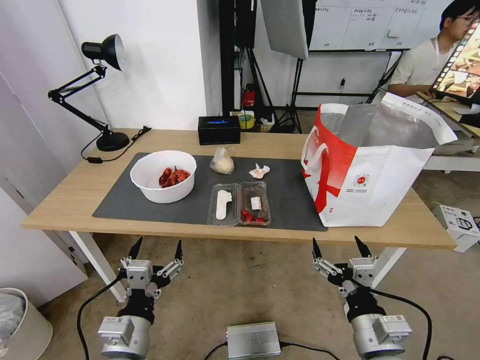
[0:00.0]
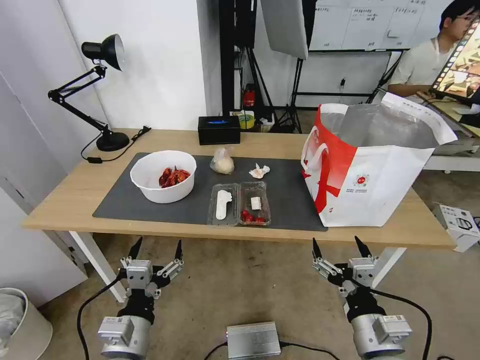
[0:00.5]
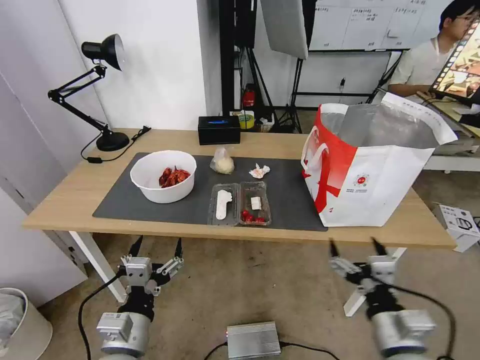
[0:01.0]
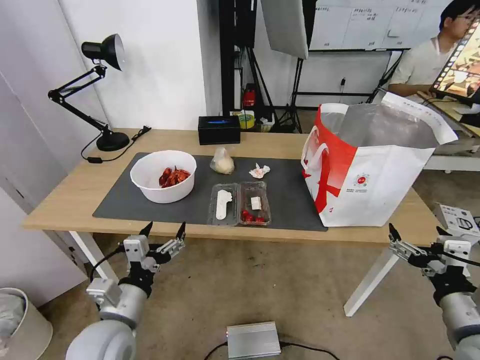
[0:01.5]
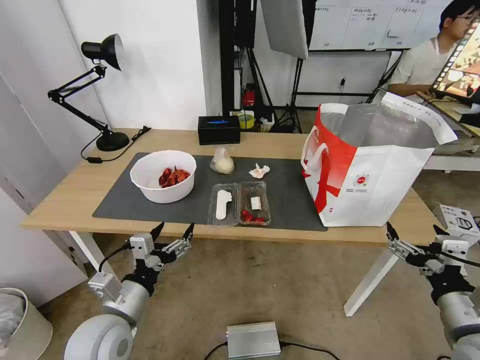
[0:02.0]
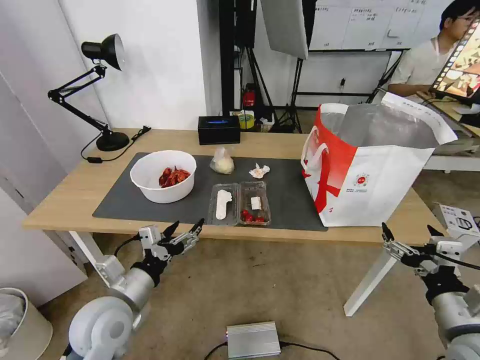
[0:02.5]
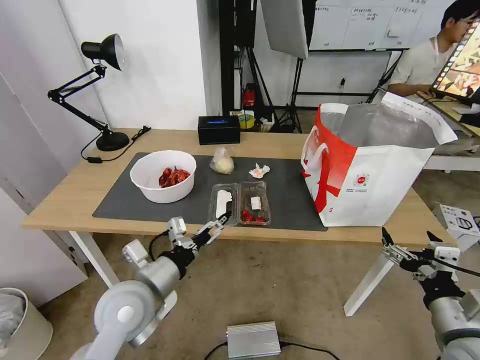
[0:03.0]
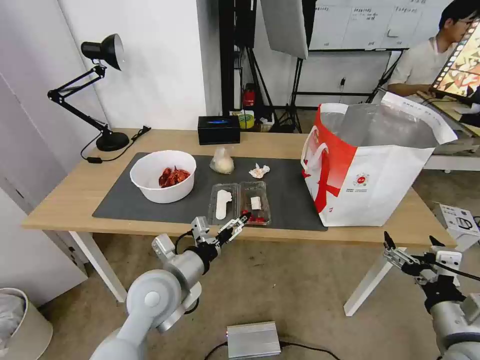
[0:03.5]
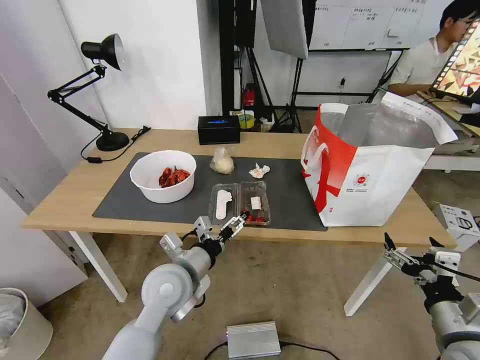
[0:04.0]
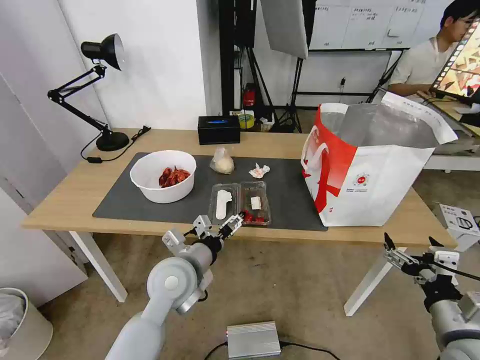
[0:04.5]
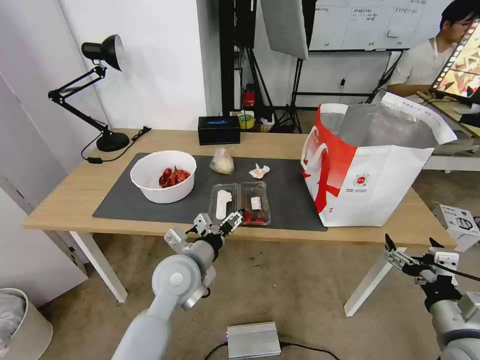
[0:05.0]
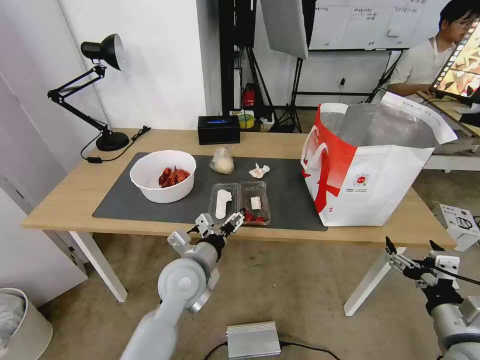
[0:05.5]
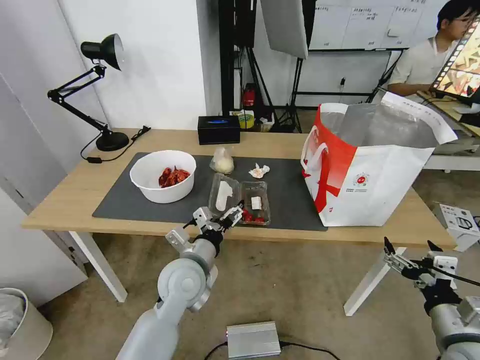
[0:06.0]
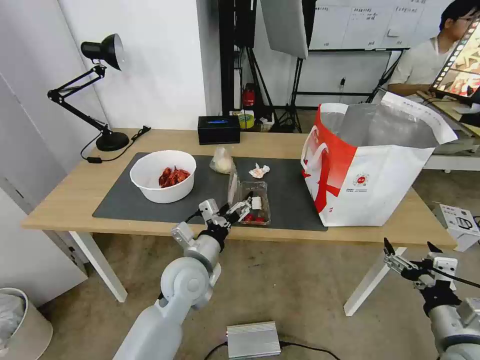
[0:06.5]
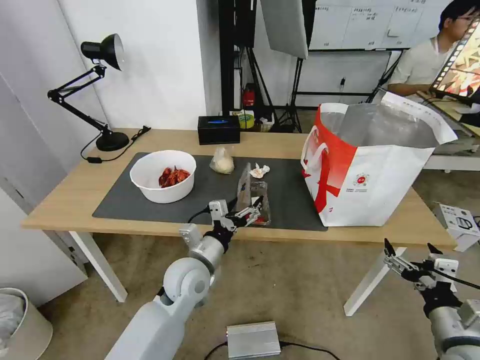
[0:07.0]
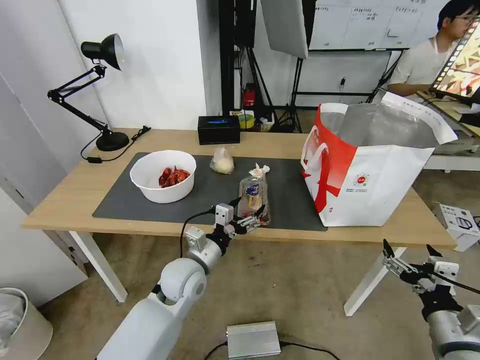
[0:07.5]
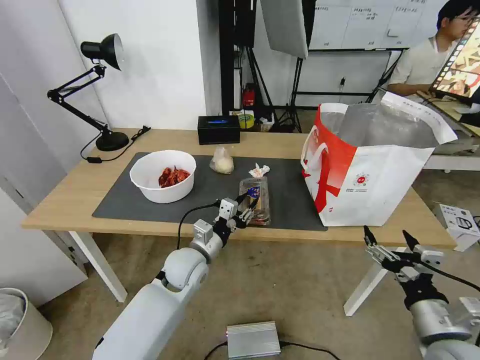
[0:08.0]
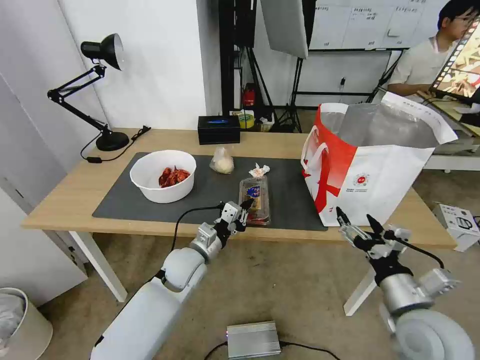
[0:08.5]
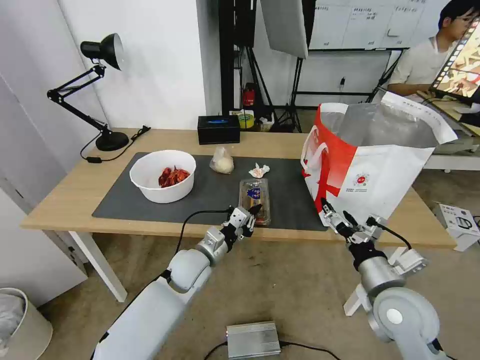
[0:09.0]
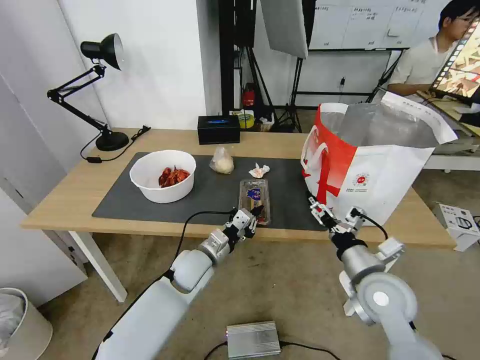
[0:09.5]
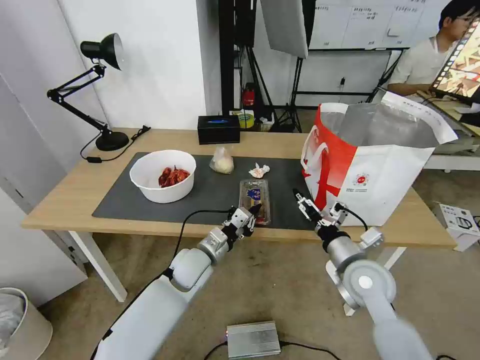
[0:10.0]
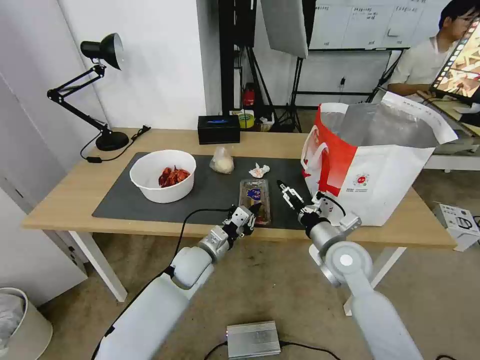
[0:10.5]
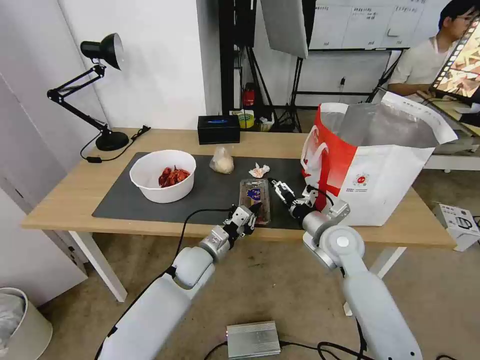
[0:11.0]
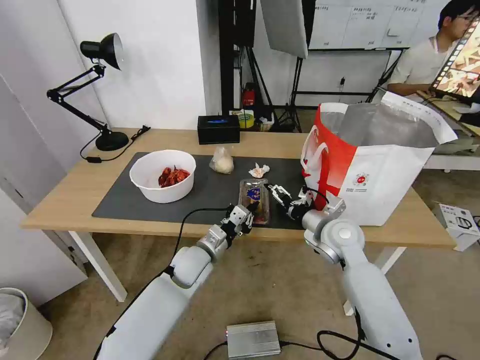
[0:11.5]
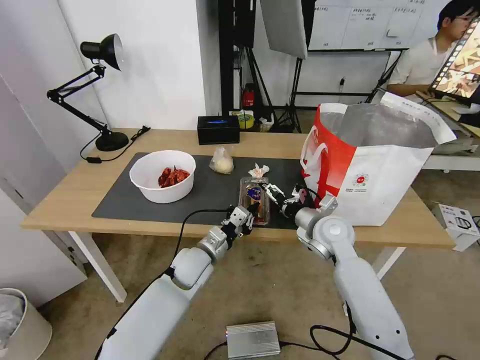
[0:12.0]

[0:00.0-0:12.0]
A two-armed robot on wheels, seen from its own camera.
Task of the whole recording: Pick up the trash from the table and place it into the takeout bag.
0:02.0 to 0:04.0: The left gripper moves to the right and forward, roughly 10 cm.
0:04.0 to 0:06.0: The grippers stay close to where they were, moving slightly.
0:06.0 to 0:08.0: The left gripper moves forward, approximately 5 cm, and closes its fingers.
0:08.0 to 0:10.0: The right gripper shifts about 20 cm forward and to the left.
0:10.0 to 0:12.0: The right gripper heads forward, covering roughly 10 cm.

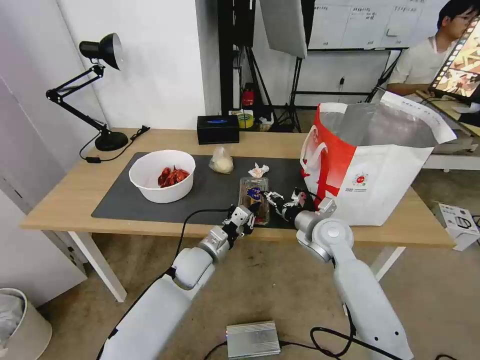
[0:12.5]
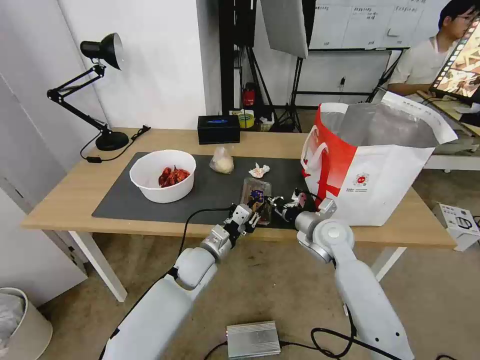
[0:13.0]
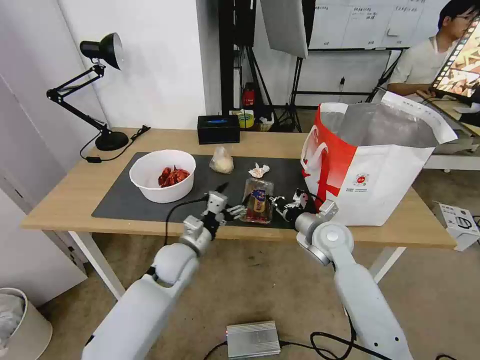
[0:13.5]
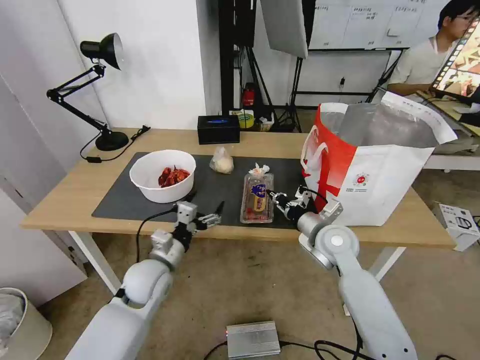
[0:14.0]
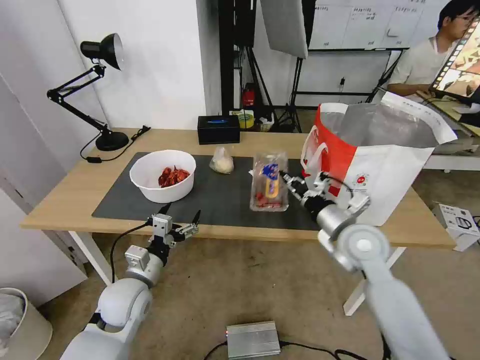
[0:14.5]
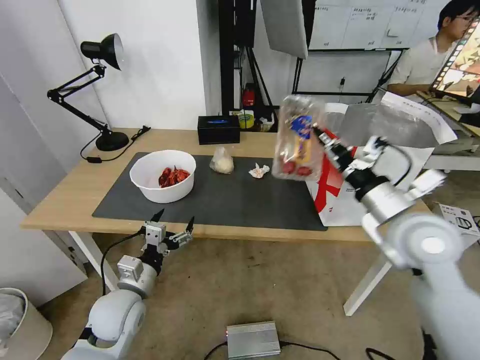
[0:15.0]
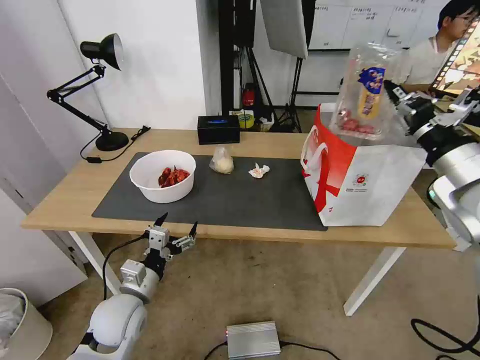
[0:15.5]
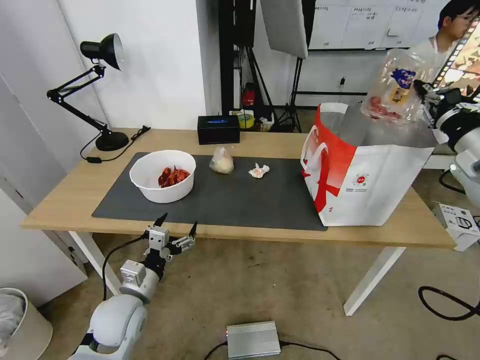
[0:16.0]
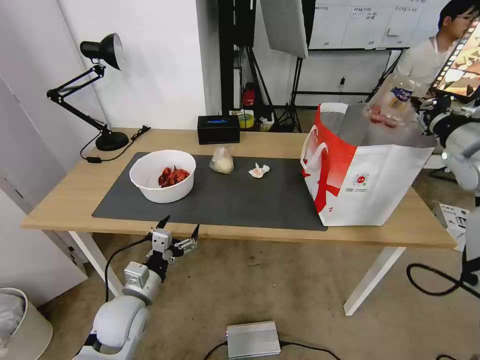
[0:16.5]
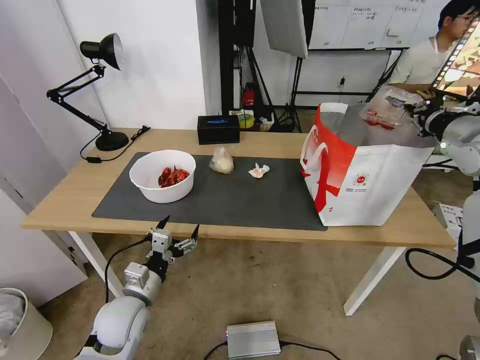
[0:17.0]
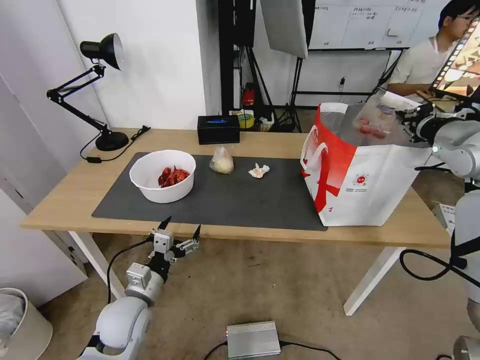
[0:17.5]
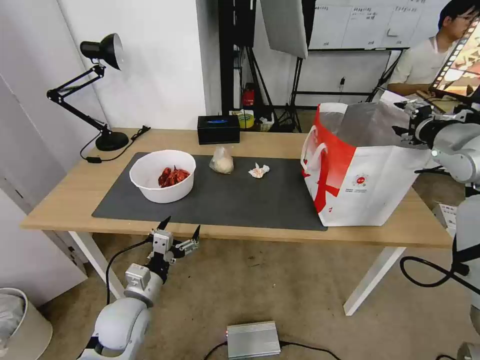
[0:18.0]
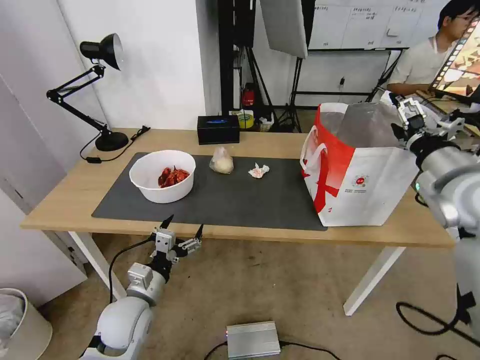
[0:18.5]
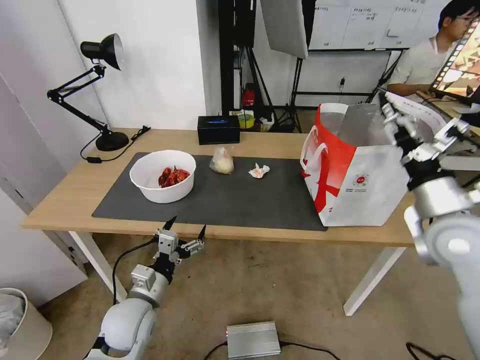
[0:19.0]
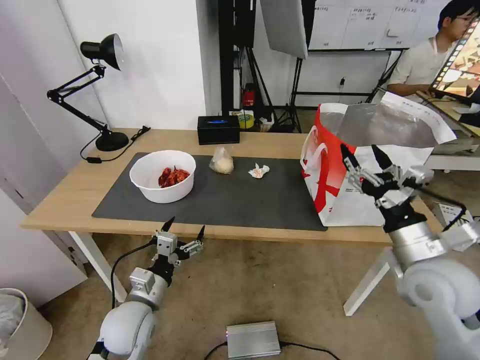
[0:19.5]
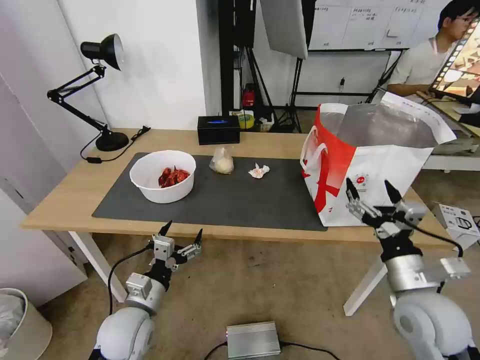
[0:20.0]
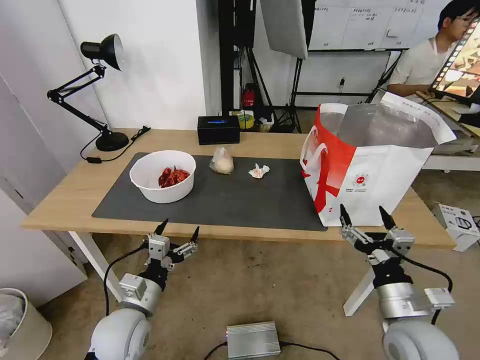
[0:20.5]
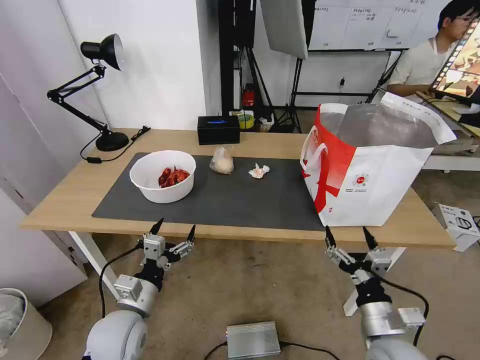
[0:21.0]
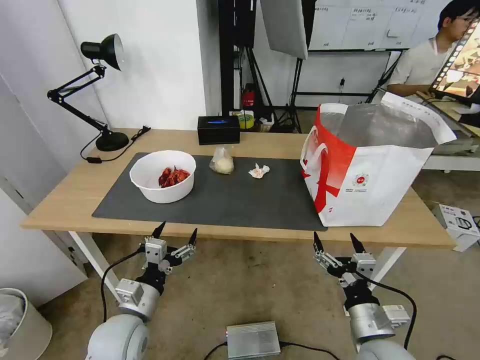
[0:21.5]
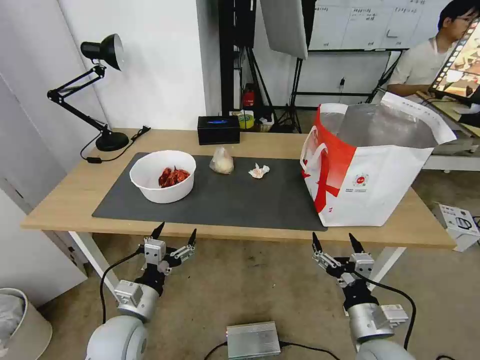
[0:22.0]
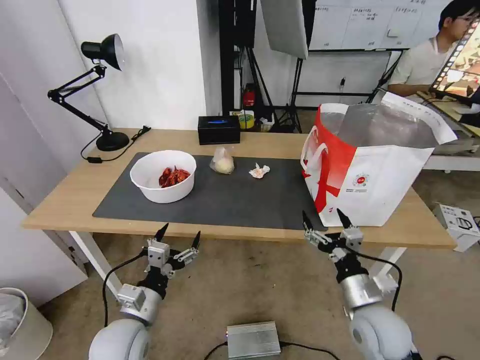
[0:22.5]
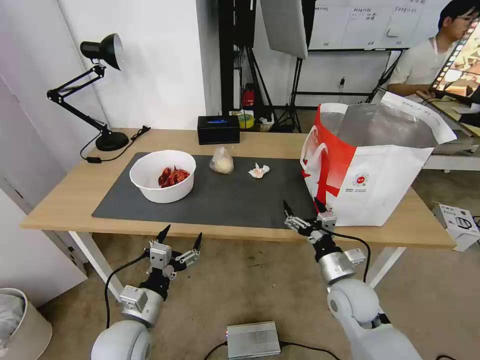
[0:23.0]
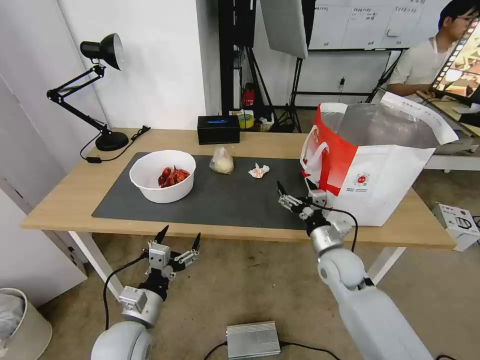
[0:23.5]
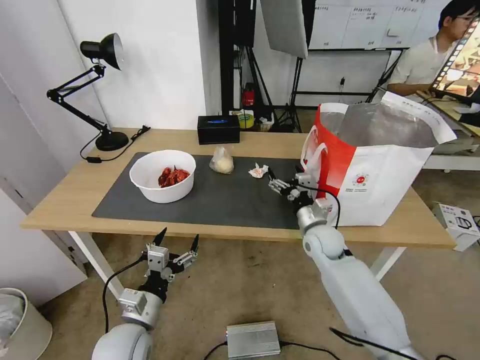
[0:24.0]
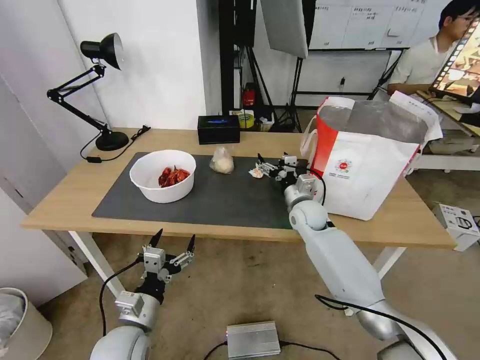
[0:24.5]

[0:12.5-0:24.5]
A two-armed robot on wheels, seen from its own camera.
Task of the whole recording: Pick up the trash from the table and place it into the takeout bag.
0:12.5 to 0:14.5: The right gripper heads backward and upward, covering some 10 cm, and closes. Meanwhile the left gripper goes approximately 15 cm to the left and backward, and opens up.
0:14.5 to 0:16.5: The right gripper travels upward and to the right by about 25 cm.
0:16.5 to 0:18.5: The right gripper is displaced to the left by about 5 cm, and opens.
0:18.5 to 0:20.5: The right gripper shifts some 25 cm downward and backward.
0:20.5 to 0:22.5: The right gripper changes place by approximately 5 cm.
0:22.5 to 0:24.5: The right gripper shifts roughly 30 cm forward.

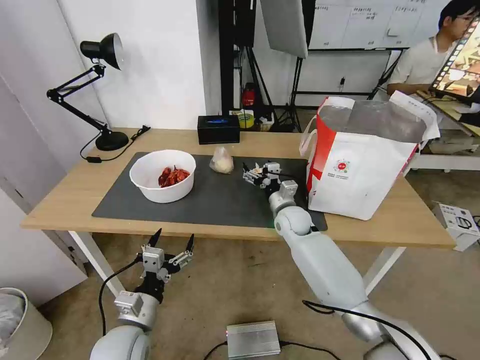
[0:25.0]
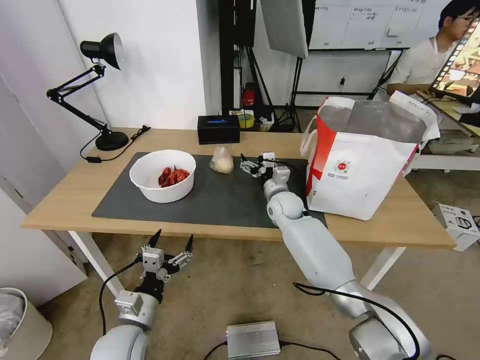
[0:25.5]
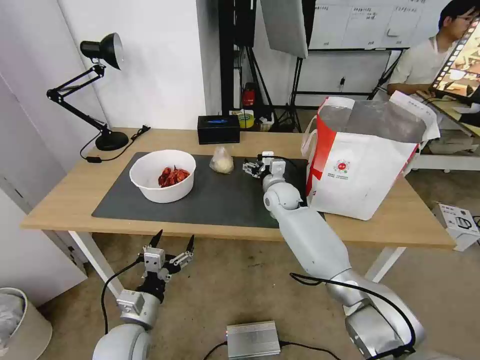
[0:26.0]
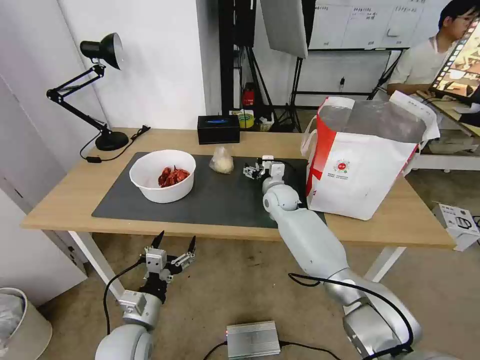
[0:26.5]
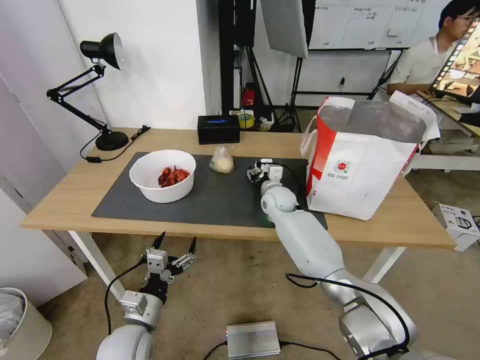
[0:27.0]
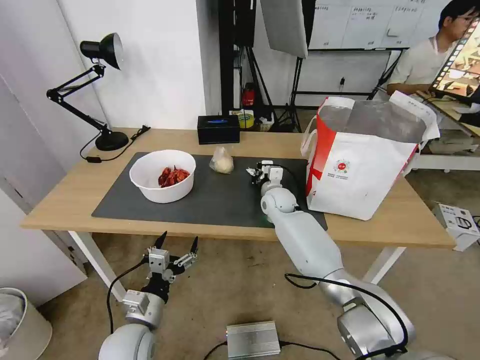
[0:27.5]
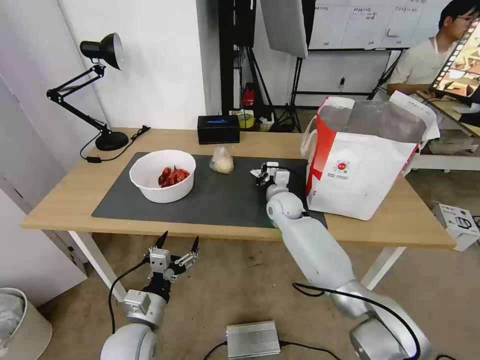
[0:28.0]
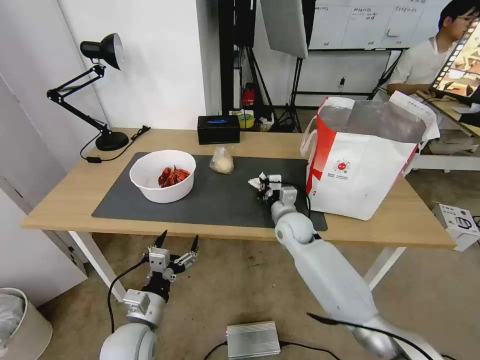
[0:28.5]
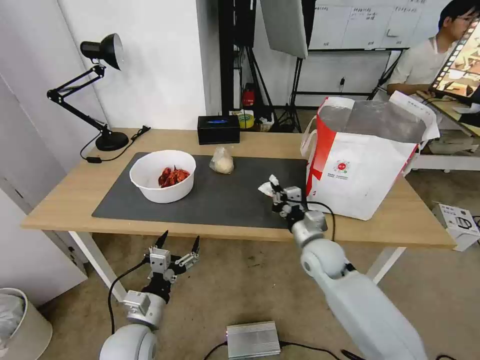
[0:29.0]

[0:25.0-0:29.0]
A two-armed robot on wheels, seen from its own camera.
Task of the whole recording: Pick up the trash from the table and place it into the takeout bag.
0:25.0 to 0:27.0: The right gripper goes some 5 cm forward, and closes its fingers.
0:27.0 to 0:29.0: The right gripper travels backward and to the right by approximately 20 cm, and closes its fingers.
